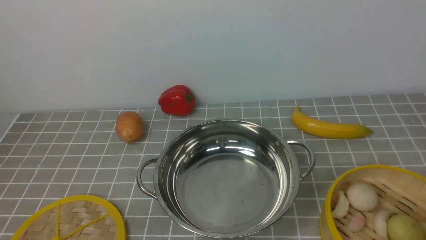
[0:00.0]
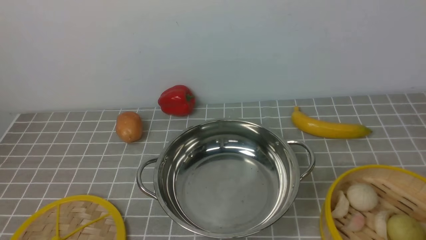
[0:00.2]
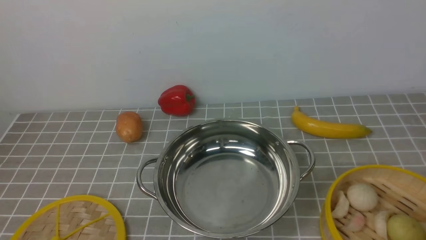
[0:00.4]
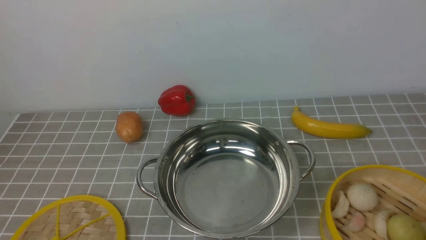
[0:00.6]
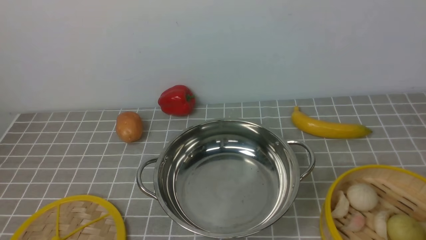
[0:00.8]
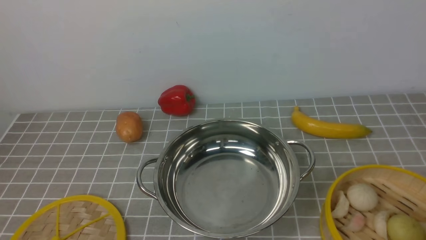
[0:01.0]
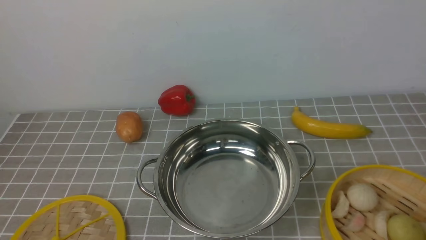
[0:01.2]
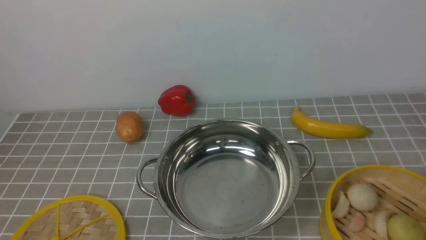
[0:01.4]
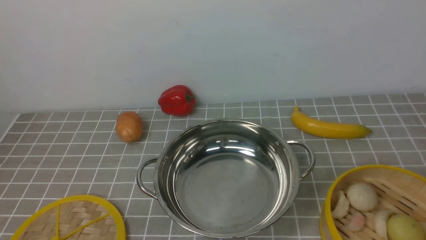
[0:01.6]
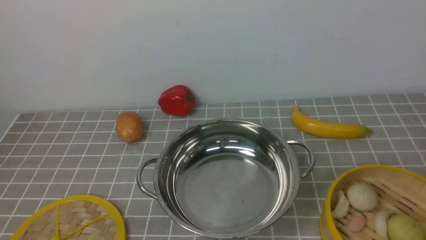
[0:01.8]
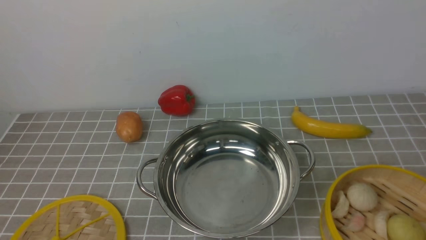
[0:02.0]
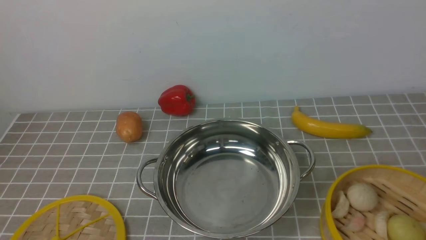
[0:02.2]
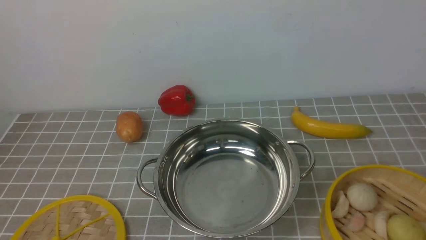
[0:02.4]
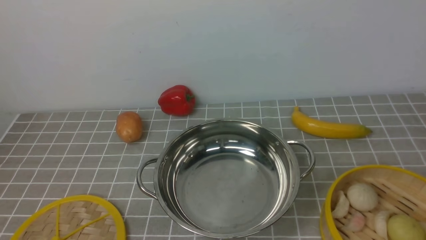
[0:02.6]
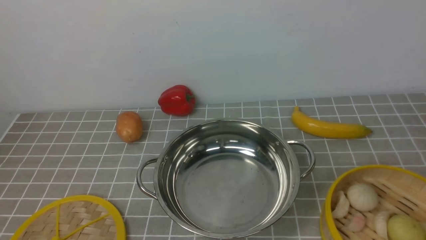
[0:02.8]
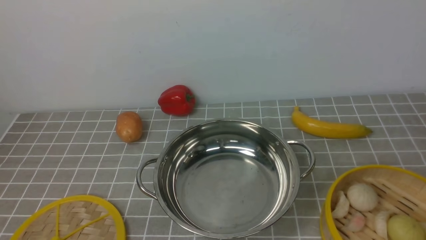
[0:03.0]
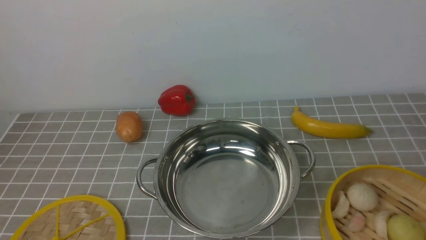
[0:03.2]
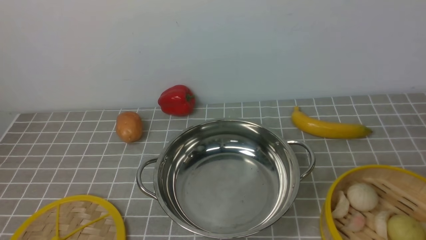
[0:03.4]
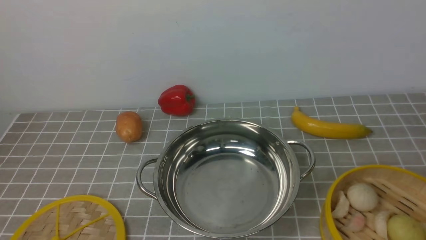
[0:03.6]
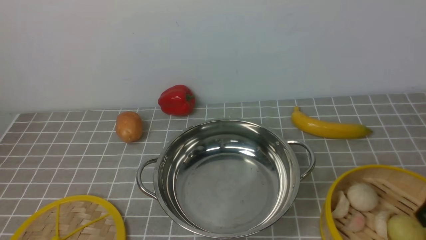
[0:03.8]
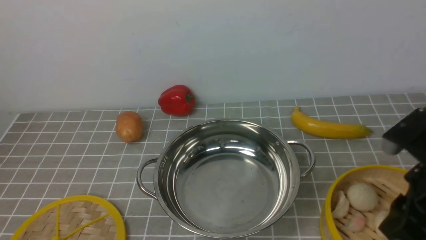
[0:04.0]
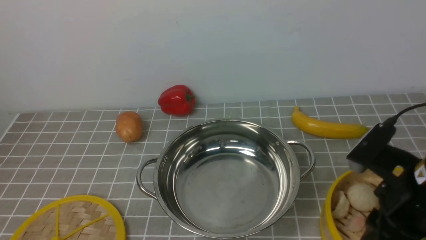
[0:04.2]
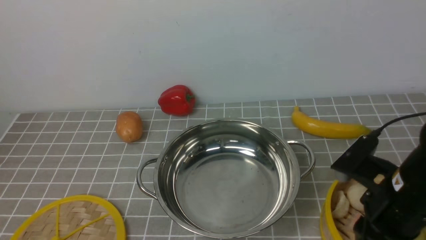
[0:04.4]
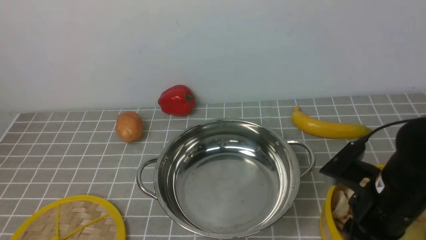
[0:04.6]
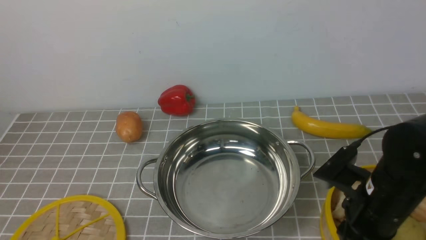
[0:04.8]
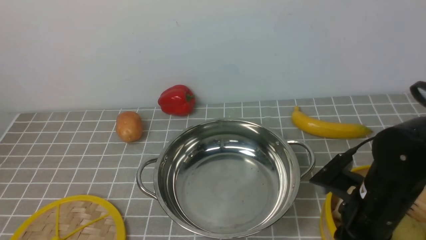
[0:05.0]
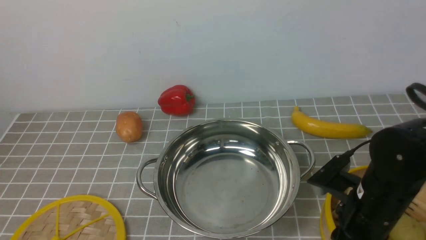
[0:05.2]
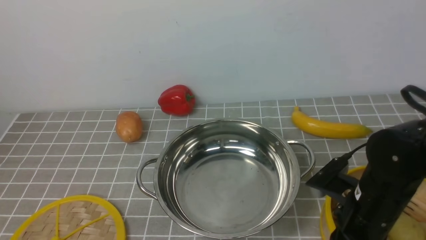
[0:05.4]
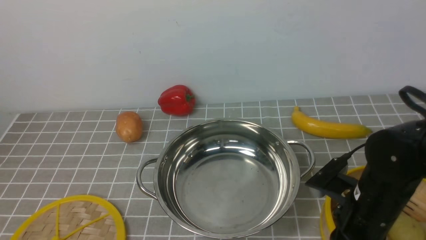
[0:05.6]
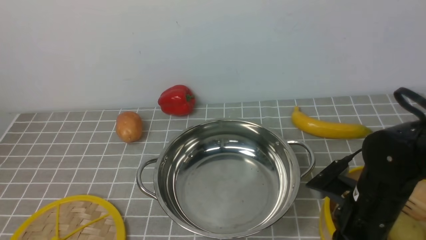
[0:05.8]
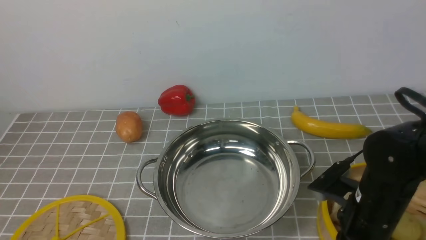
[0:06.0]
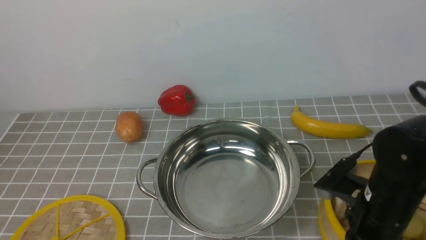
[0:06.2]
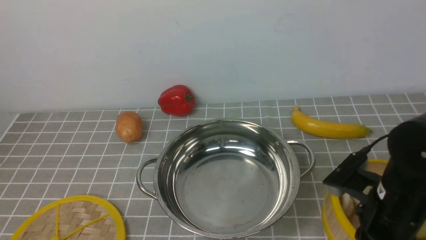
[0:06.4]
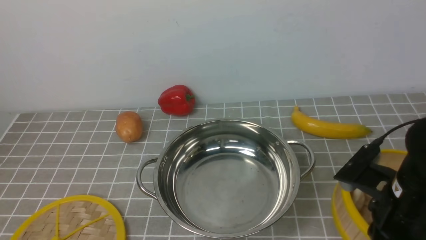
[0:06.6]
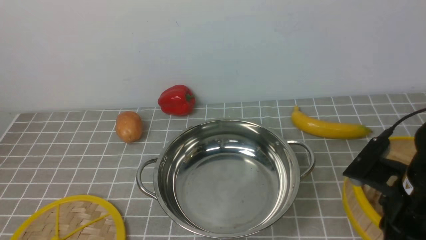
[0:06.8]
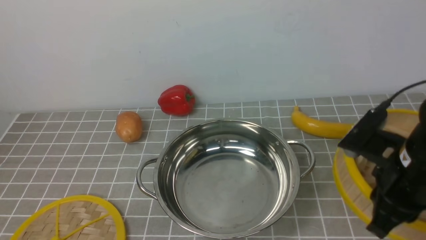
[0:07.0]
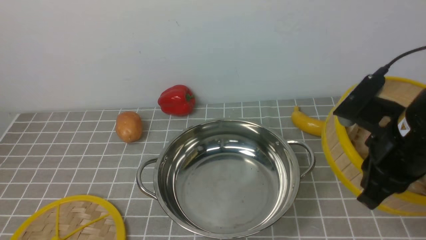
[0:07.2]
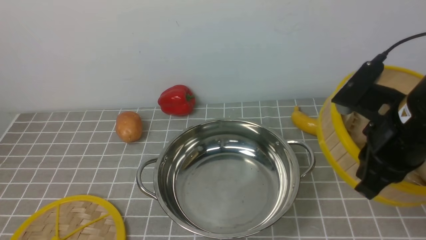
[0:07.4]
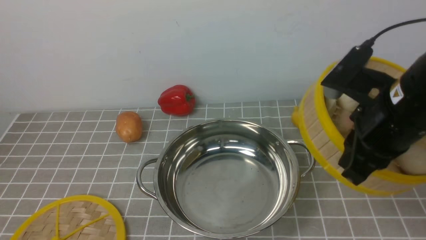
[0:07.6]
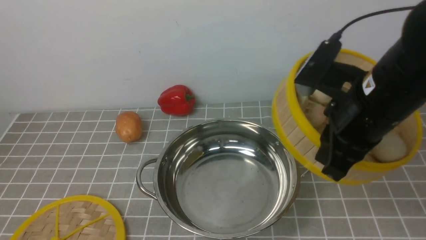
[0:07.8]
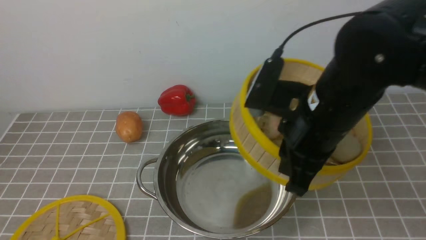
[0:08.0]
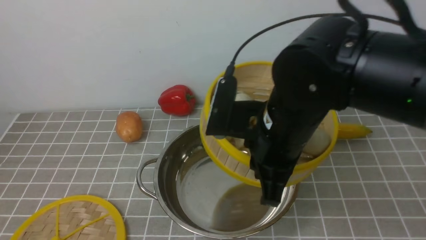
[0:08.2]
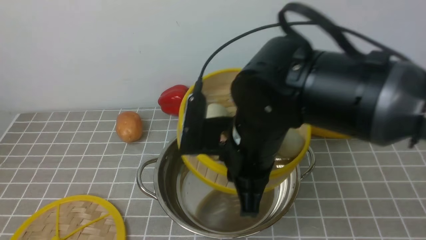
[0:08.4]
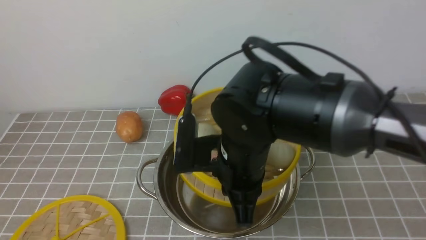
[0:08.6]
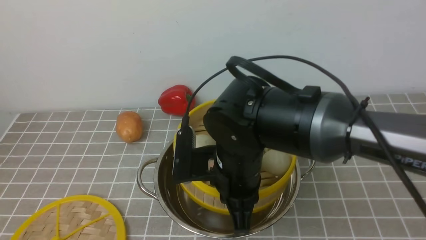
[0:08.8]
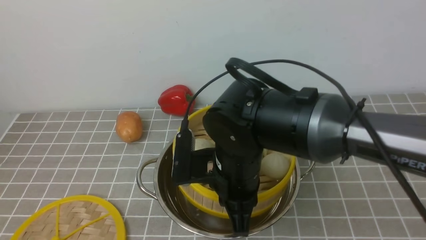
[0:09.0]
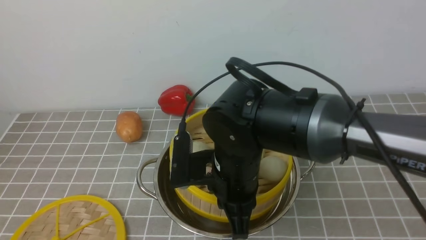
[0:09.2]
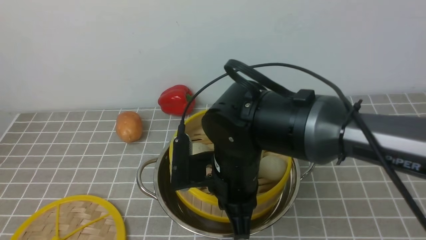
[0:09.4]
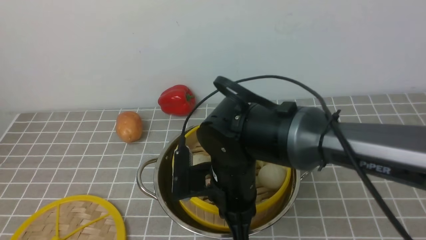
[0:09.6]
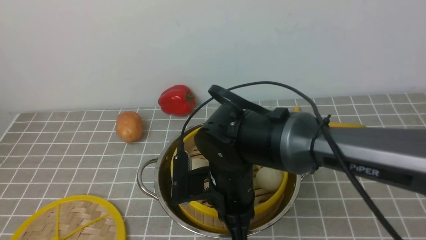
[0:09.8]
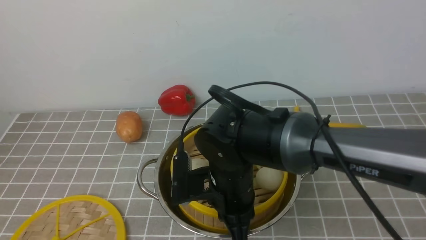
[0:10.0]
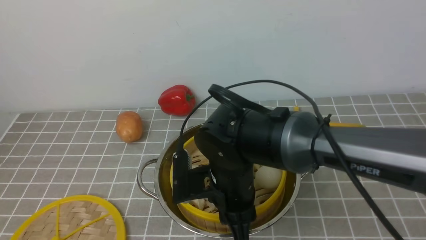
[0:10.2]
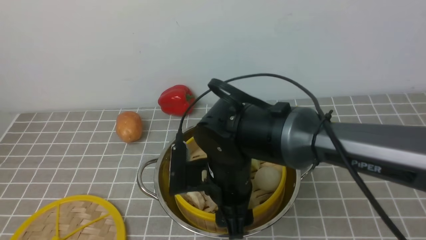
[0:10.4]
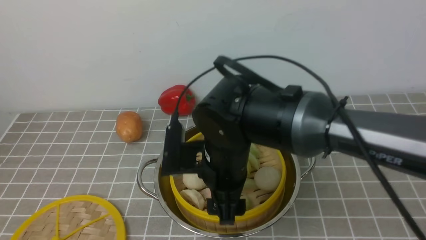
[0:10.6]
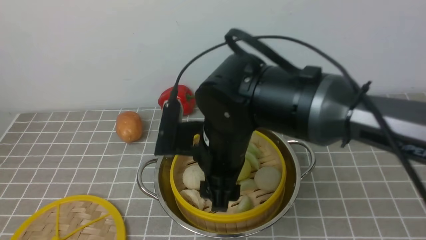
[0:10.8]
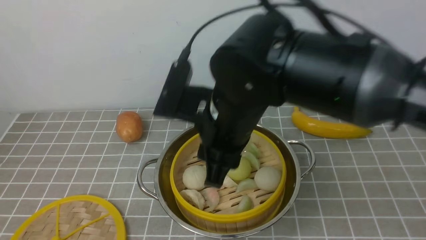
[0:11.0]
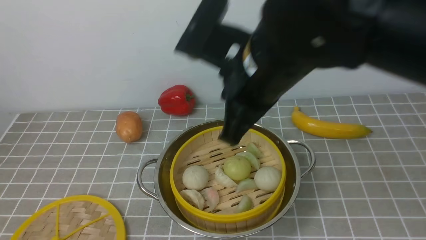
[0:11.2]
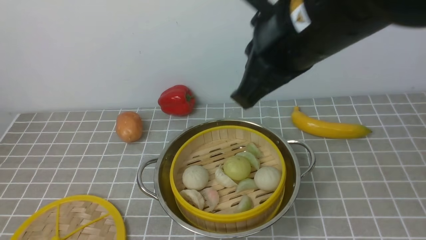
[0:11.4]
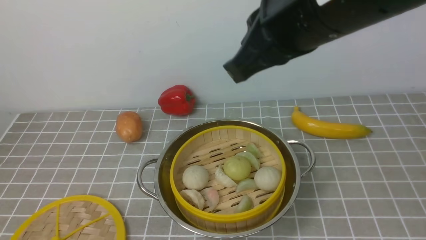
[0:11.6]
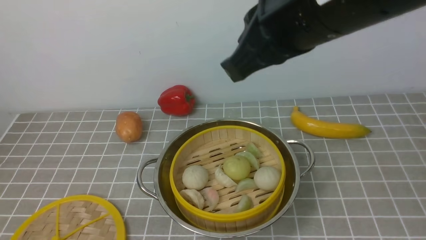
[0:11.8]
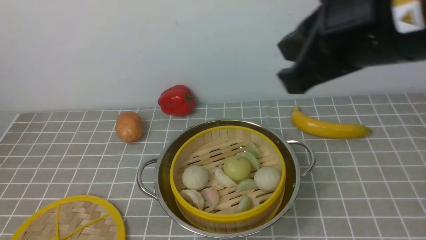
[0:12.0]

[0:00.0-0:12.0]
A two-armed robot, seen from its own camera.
Task of the whole recording: place the steamer in the pot on the grey tablecloth, and put the lid on the steamer.
Step, 0:00.0 to 0:06.4: use the right arm to lift the steamer closest to it.
Step, 0:06.6 to 0:10.4: use the right arm to put the steamer into the iron steamer pot in the middle.
0:03.0 to 0:04.4: The right gripper moves to the left and downward, approximately 15 cm.
0:04.4 to 0:06.0: The right gripper goes about 5 cm downward, and closes its fingers.
0:06.0 to 0:07.6: The right gripper moves upward, about 15 cm.
0:07.6 to 0:09.0: The right gripper goes about 20 cm to the left and downward.
0:09.0 to 0:10.4: The right gripper opens its fingers.
0:10.4 to 0:12.0: The right gripper is displaced upward and to the right by roughly 25 cm, and closes.

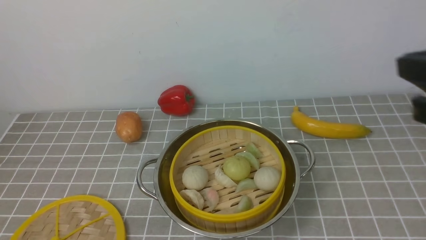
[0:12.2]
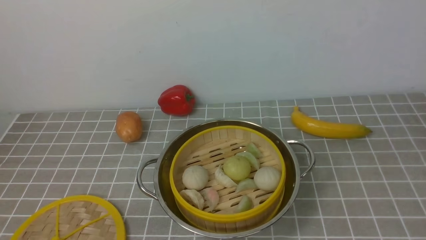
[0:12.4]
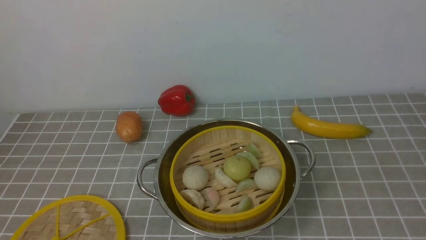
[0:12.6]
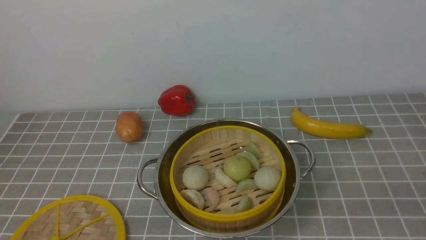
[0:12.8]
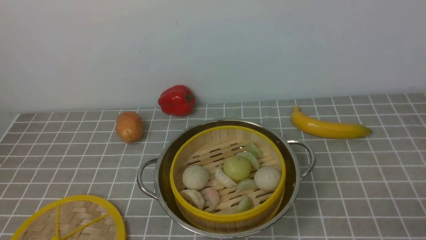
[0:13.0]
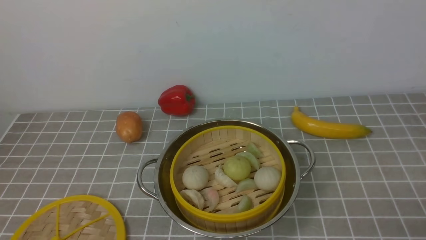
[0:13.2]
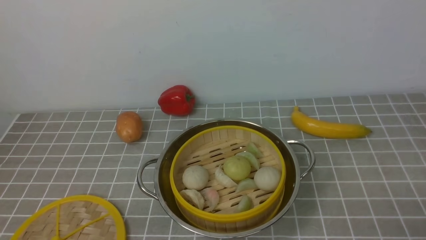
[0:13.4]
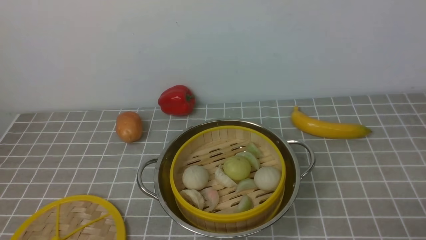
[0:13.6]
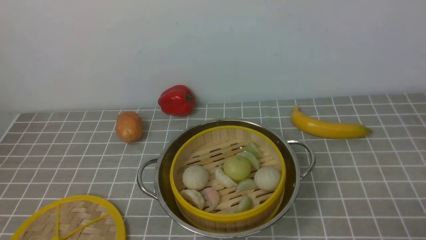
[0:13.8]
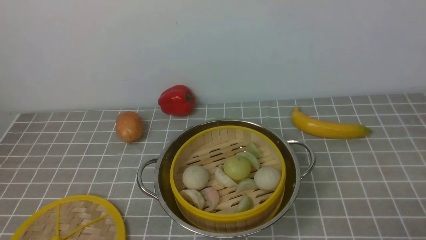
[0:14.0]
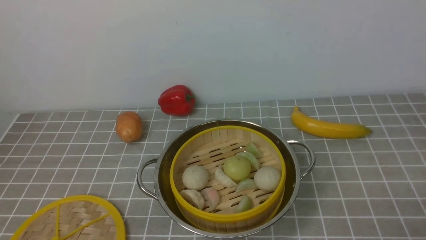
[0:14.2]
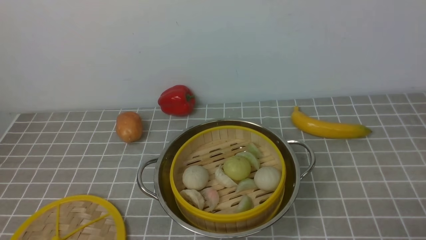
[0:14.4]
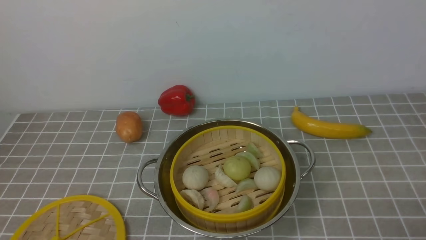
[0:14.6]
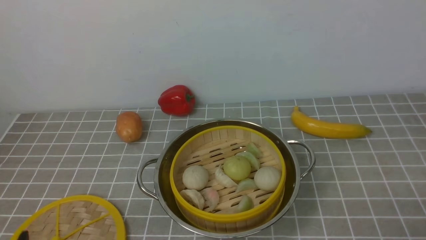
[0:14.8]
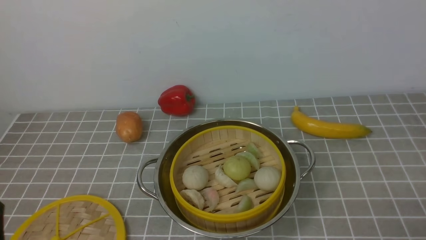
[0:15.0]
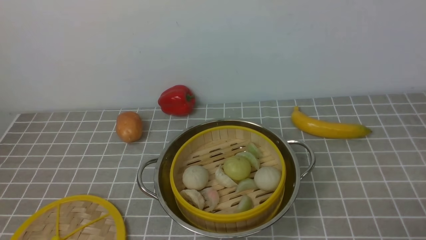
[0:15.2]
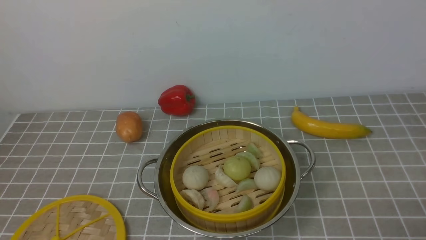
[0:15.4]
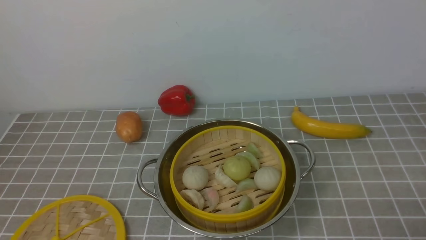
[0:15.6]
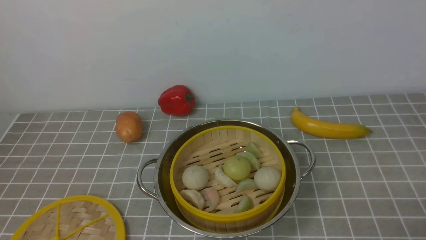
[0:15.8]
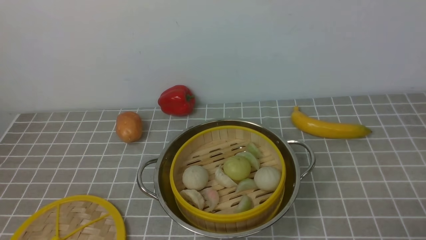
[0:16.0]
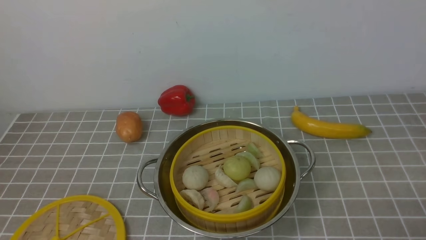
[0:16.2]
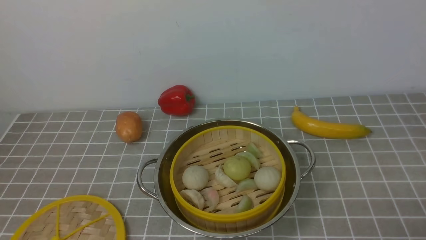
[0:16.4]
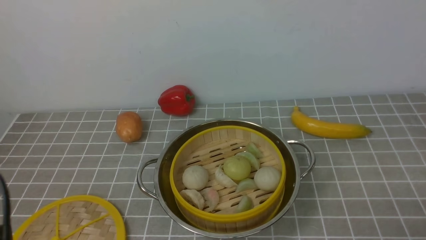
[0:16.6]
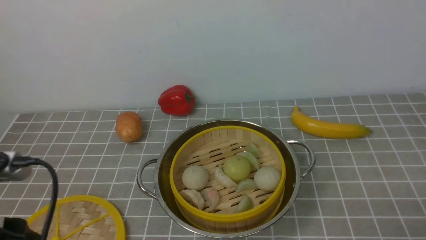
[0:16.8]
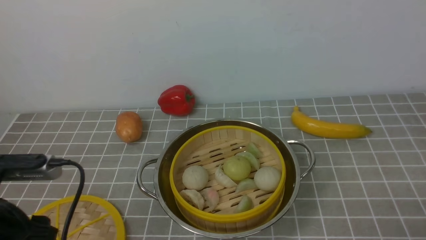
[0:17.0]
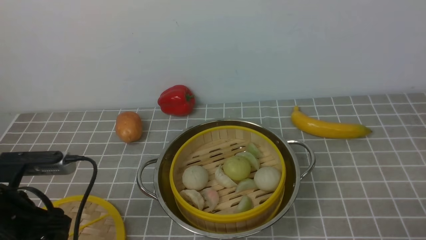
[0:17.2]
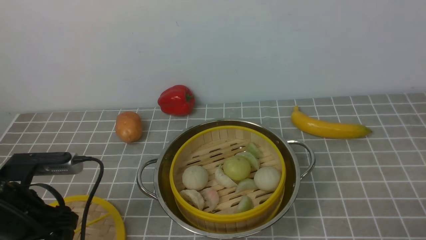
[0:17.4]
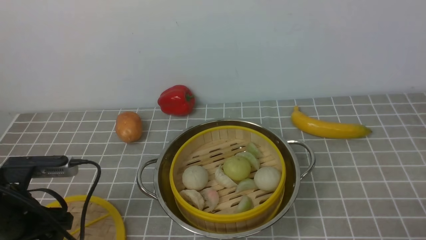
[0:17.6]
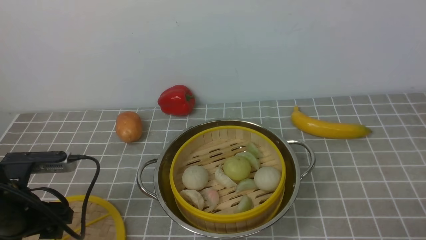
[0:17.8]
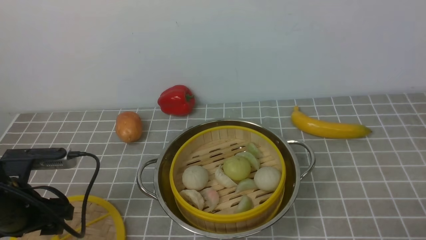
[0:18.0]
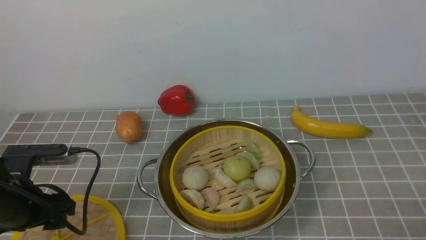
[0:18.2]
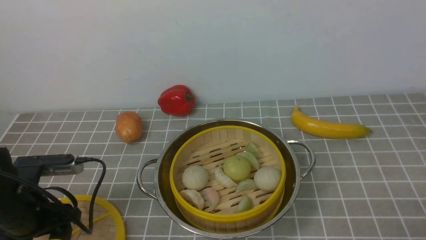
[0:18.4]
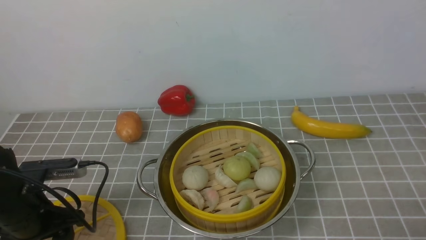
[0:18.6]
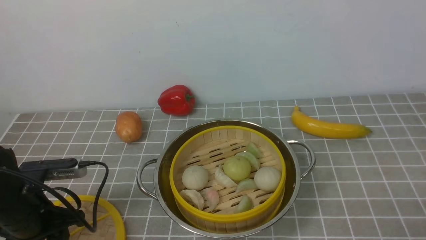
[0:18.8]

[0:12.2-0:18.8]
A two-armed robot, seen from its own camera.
Task of the whole recording: place the steamer in the pot on the grey tablecloth, and put the lid on the steamer.
0:12.2 to 0:13.8: The right gripper is displaced downward and backward by approximately 20 cm, and opens up.
0:15.4 to 0:17.2: The left gripper shifts approximately 15 cm forward.
0:17.2 to 0:18.8: The left gripper goes about 5 cm downward, and closes up.
